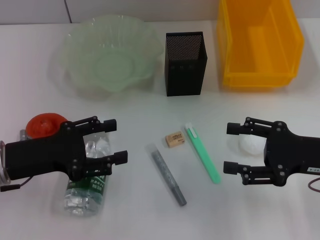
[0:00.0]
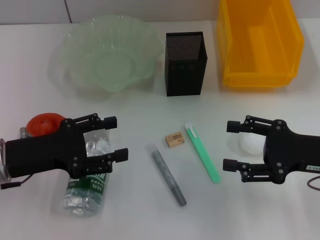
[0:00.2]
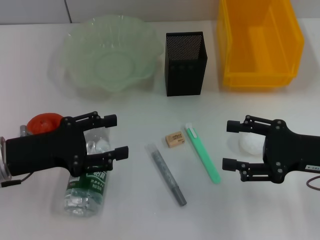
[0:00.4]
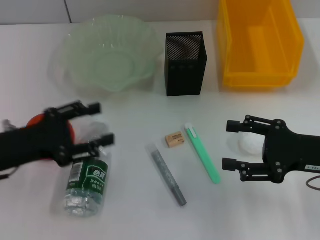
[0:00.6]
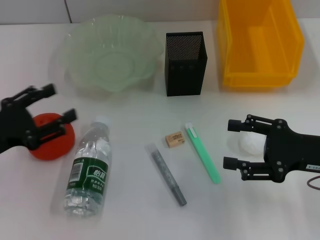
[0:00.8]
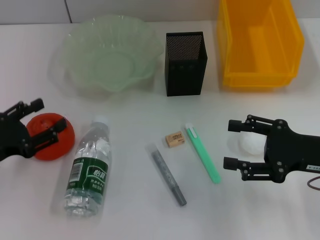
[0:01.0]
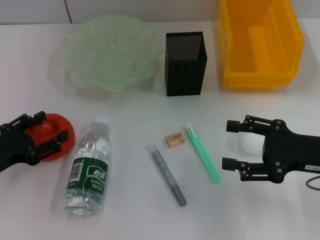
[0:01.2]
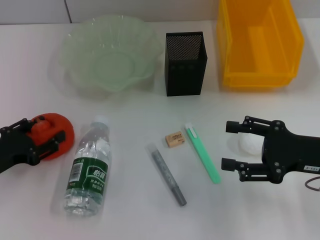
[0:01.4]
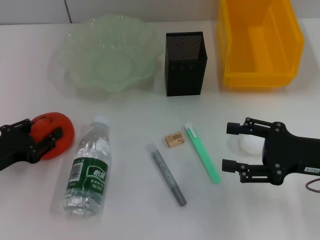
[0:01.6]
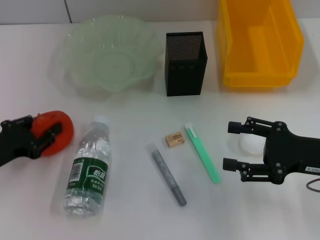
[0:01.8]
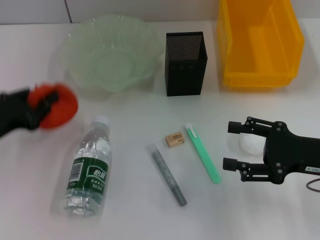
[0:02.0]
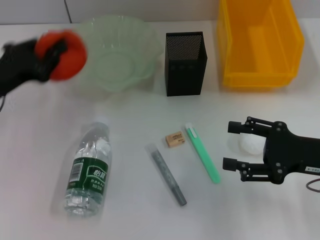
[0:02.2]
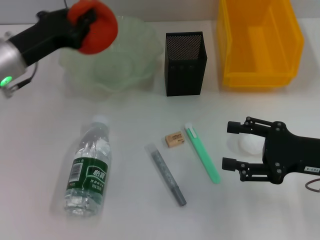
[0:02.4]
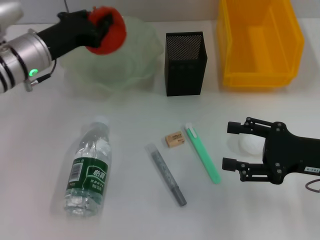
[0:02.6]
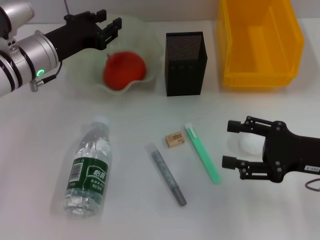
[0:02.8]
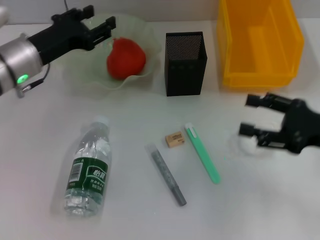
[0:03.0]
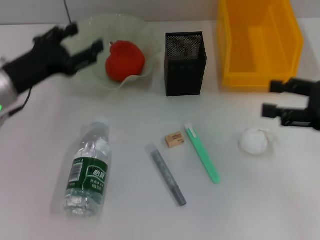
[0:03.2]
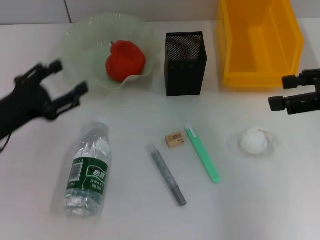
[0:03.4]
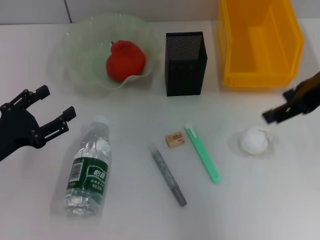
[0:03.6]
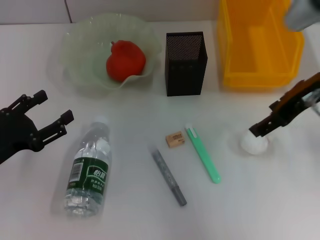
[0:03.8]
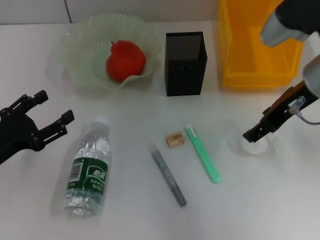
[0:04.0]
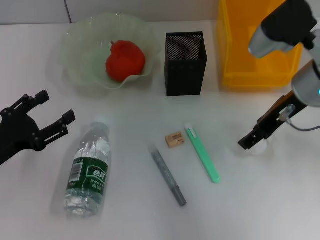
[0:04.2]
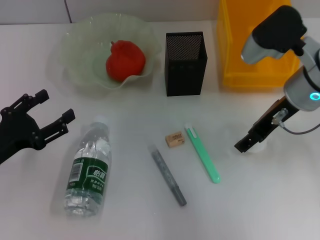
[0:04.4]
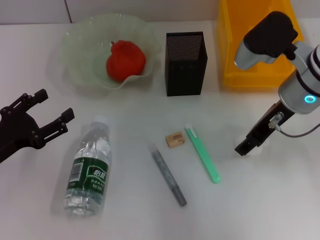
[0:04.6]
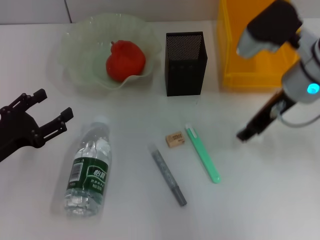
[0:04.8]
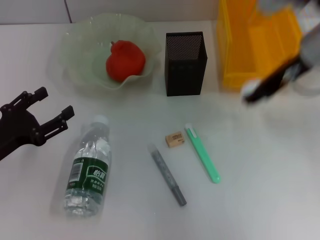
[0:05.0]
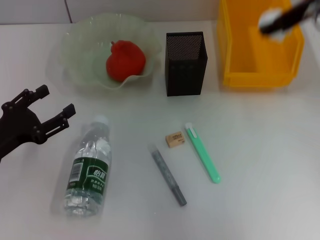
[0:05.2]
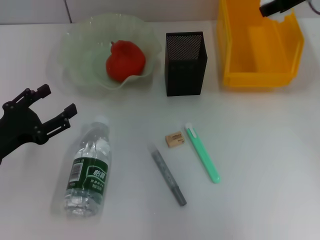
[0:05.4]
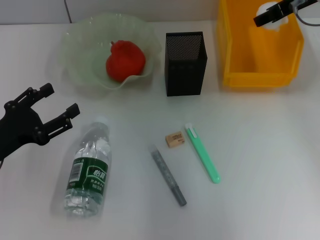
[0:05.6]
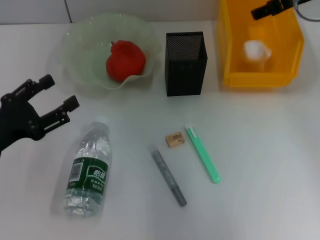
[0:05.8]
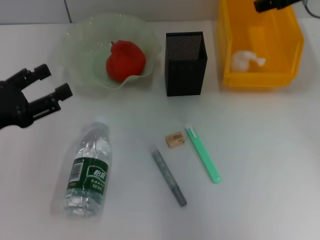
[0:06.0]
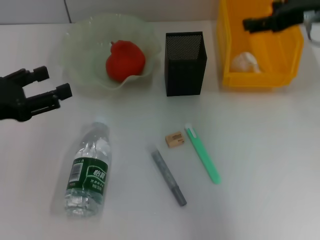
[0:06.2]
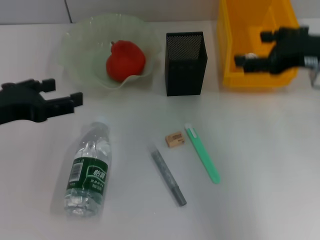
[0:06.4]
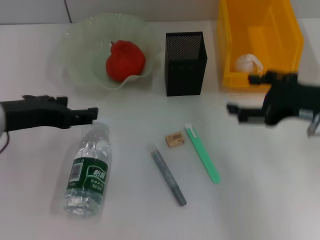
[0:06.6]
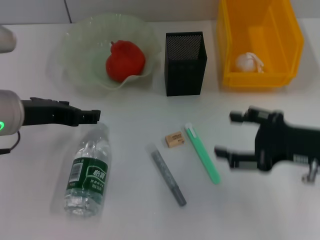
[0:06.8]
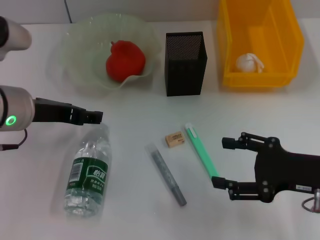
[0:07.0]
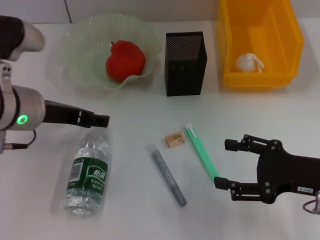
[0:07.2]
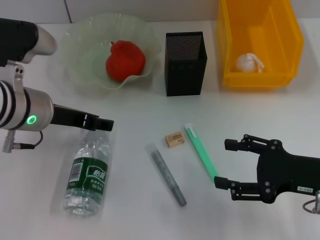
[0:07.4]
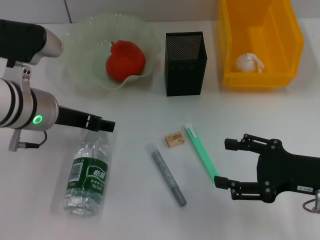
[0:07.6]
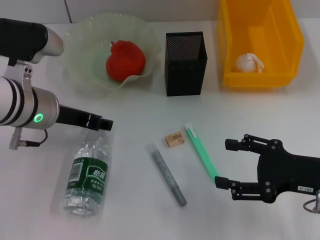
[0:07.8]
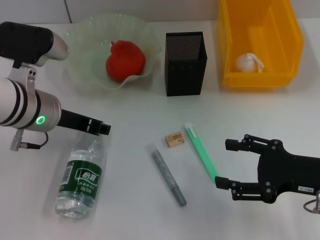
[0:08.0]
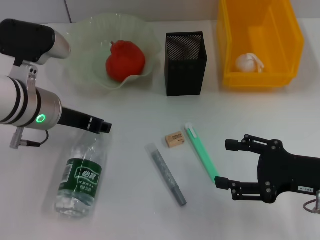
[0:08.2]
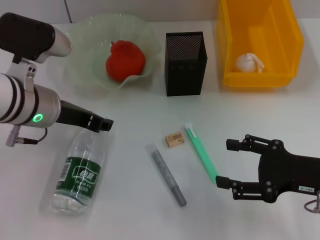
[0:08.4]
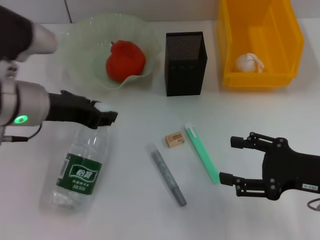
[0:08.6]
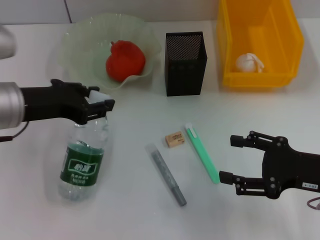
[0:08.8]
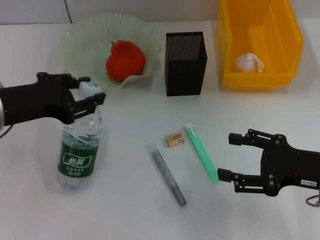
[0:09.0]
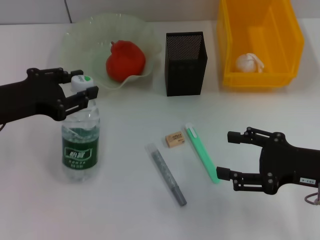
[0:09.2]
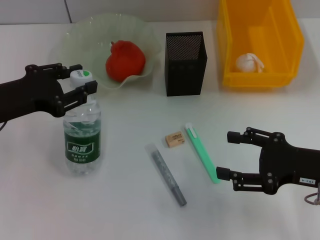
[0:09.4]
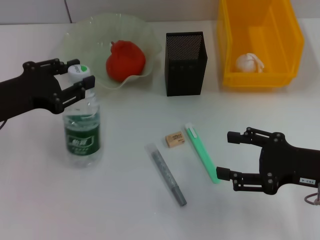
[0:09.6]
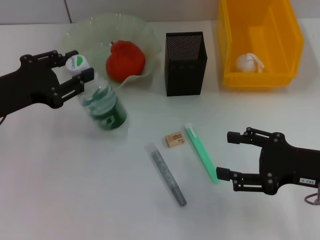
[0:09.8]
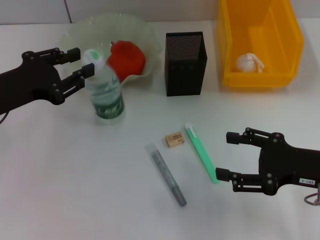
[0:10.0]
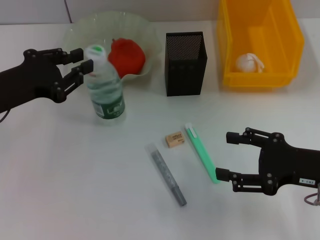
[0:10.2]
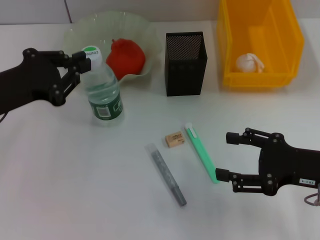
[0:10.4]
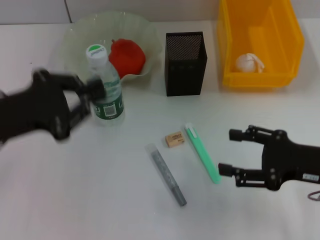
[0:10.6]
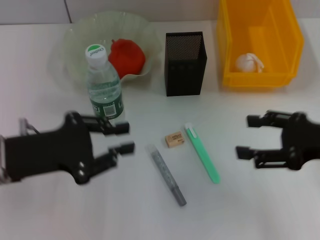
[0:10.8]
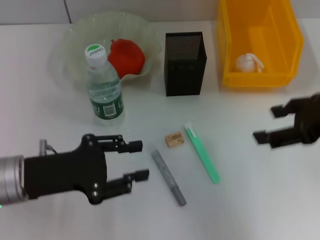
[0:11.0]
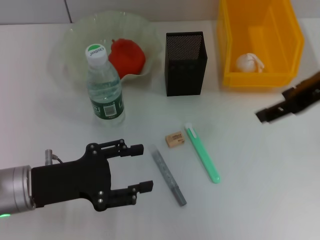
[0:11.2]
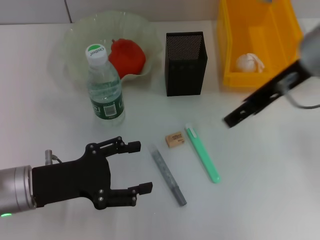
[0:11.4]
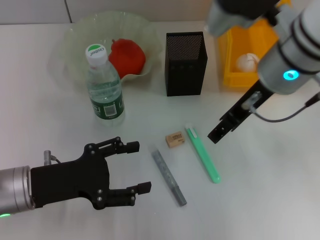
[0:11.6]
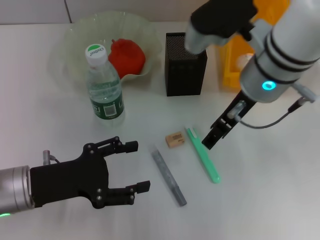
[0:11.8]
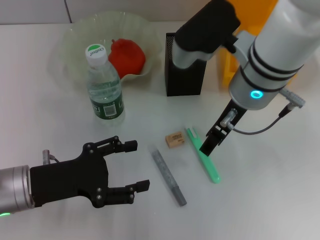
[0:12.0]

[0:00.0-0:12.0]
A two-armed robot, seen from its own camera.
Step, 0.0 to 1.4 s: Grab the orange with the left hand.
Step, 1.8 to 2.6 s: Place the orange into the fruit bowl with the left hand.
Step, 3.0 to 4.6 s: Grab the paper ball with the right hand.
Step, 4.8 to 5.6 s: Place the paper ball into the trash can with the right hand.
Step, 5.8 to 8.2 s: Grab the water bottle with the left hand.
Step, 8.4 to 9.8 s: Place the water bottle on the table with the left hand.
0.0 to 1.6 s: The left gripper shifts some 5 cm to the left.
1.6 to 3.0 s: The left gripper shifts roughly 20 cm forward, to the right and upward.
3.0 to 4.4 s: The right gripper is displaced to the left, forward and upward by approximately 15 cm; the left gripper travels backward and to the left by roughly 20 cm, and opens up.
4.4 to 6.0 s: The left gripper moves upward, some 5 cm. The right gripper moves upward, forward and to the right, some 10 cm.
6.0 to 7.6 s: The right gripper shifts roughly 25 cm backward and downward; the left gripper is displaced to the right and forward by roughly 15 cm.
7.6 to 9.0 s: The left gripper is displaced to the left by about 5 cm, and closes up.
10.4 to 12.0 s: The left gripper heads downward and backward, covering some 10 cm, and opens up. The right gripper heads to the left, forward and upward, covering about 20 cm.

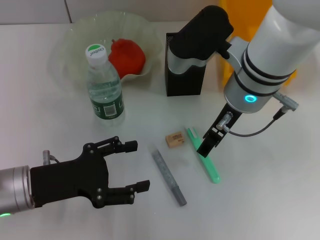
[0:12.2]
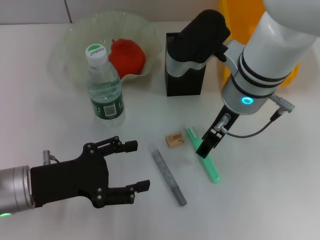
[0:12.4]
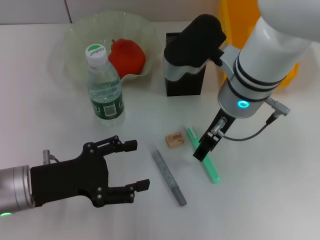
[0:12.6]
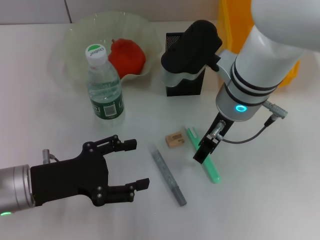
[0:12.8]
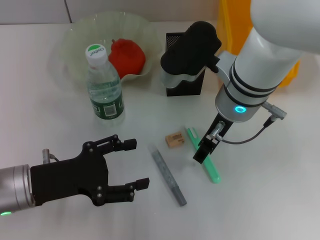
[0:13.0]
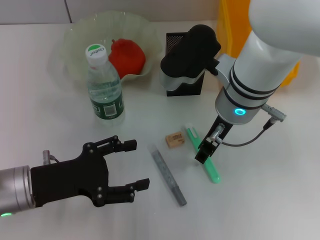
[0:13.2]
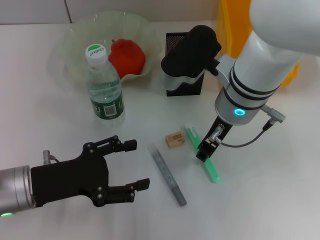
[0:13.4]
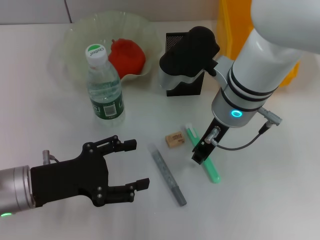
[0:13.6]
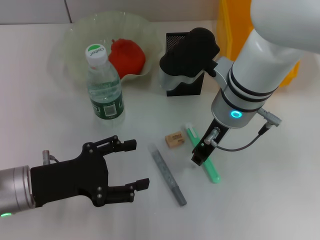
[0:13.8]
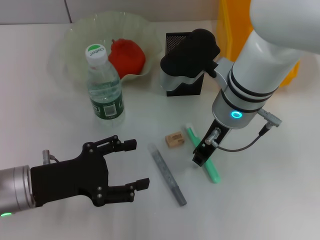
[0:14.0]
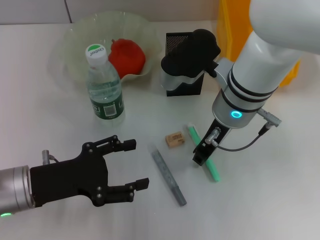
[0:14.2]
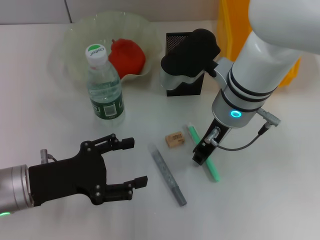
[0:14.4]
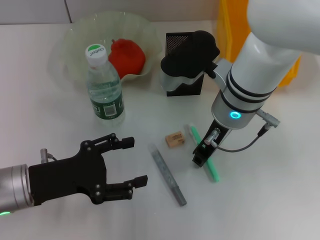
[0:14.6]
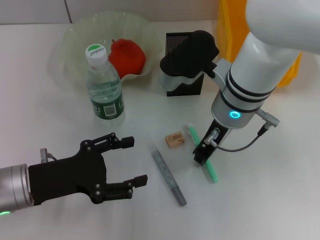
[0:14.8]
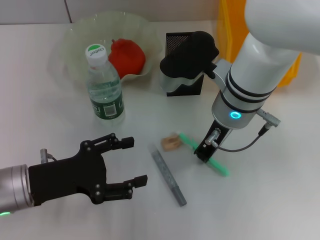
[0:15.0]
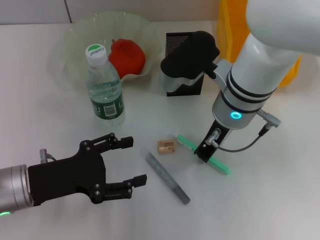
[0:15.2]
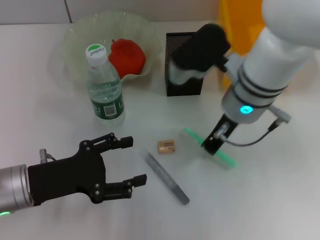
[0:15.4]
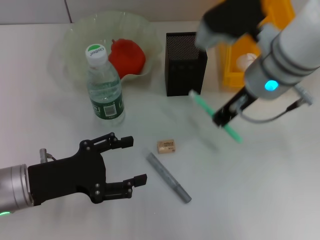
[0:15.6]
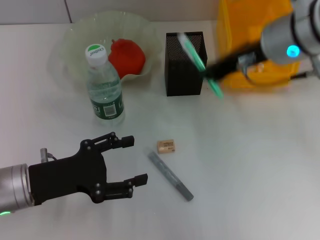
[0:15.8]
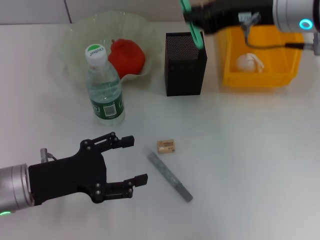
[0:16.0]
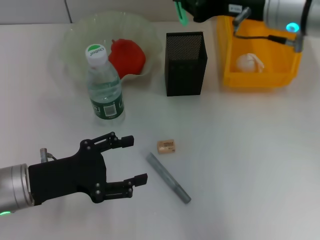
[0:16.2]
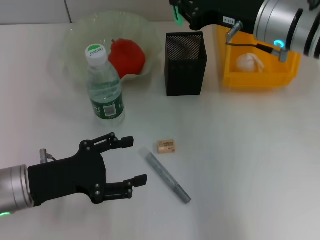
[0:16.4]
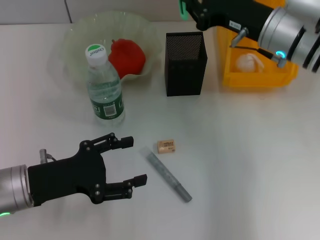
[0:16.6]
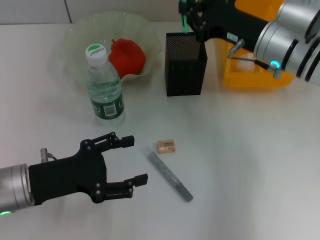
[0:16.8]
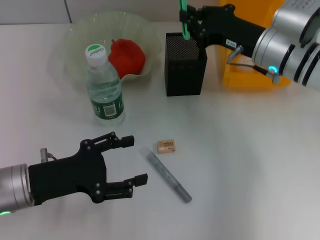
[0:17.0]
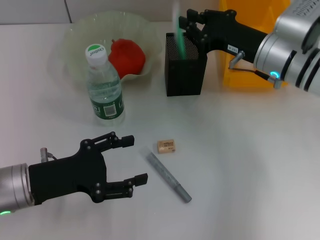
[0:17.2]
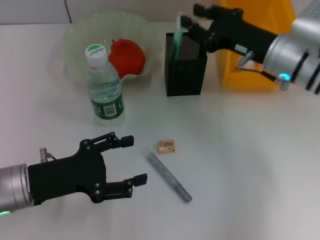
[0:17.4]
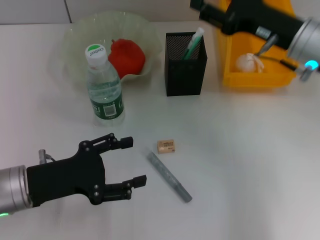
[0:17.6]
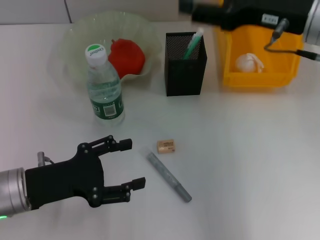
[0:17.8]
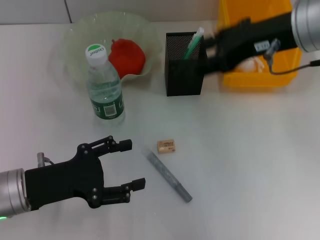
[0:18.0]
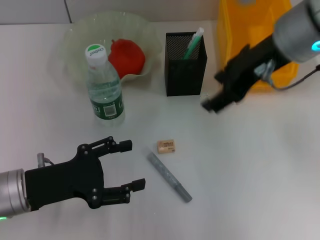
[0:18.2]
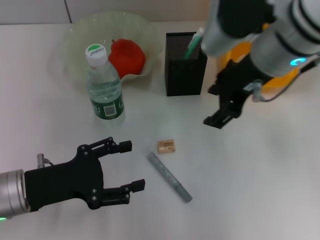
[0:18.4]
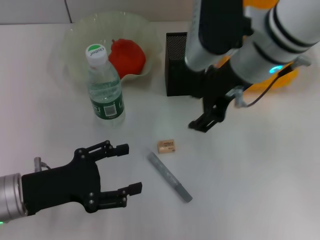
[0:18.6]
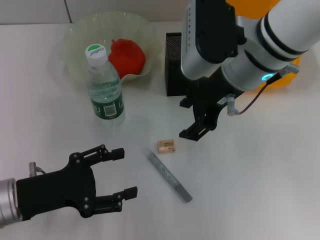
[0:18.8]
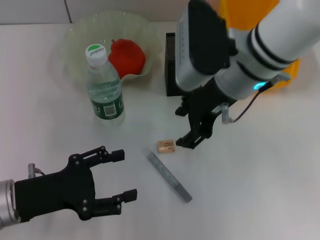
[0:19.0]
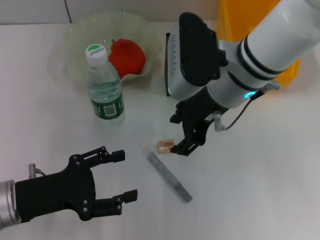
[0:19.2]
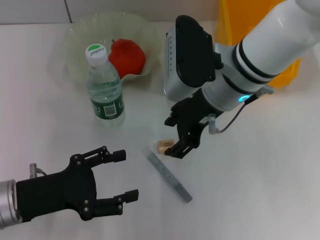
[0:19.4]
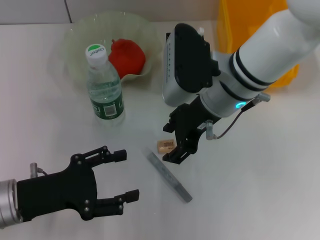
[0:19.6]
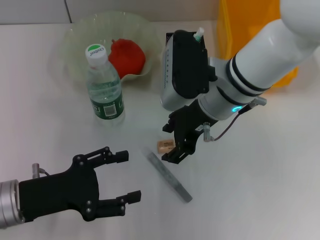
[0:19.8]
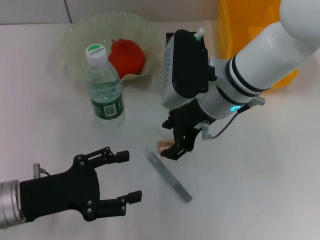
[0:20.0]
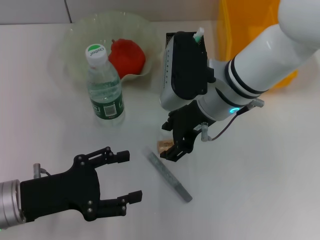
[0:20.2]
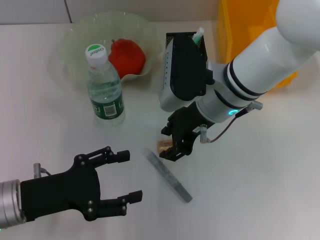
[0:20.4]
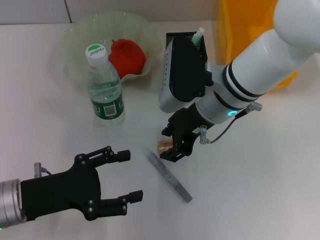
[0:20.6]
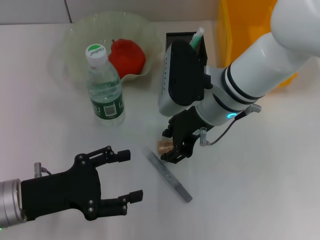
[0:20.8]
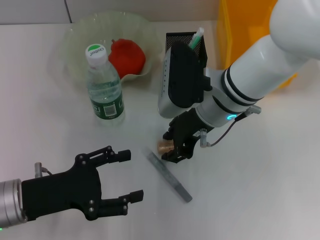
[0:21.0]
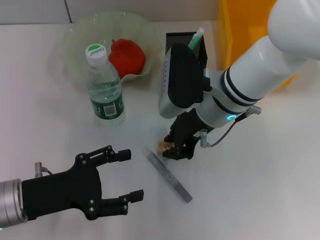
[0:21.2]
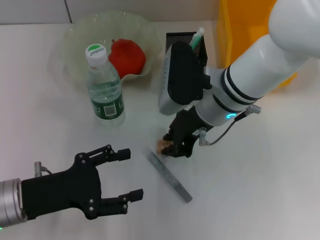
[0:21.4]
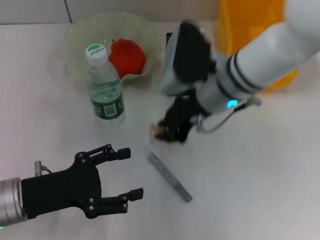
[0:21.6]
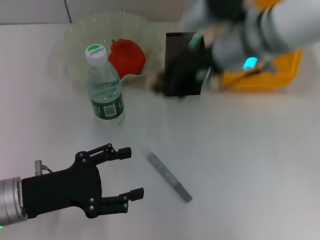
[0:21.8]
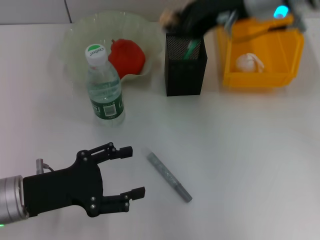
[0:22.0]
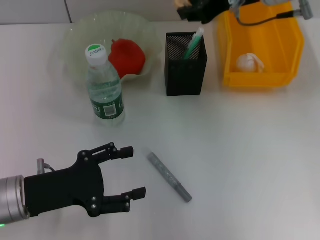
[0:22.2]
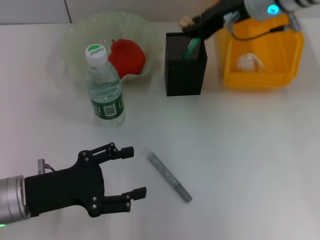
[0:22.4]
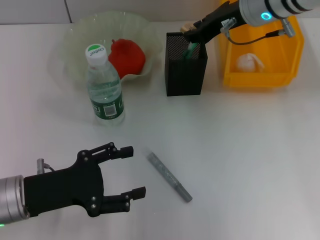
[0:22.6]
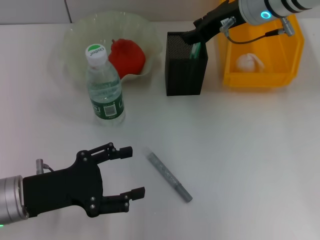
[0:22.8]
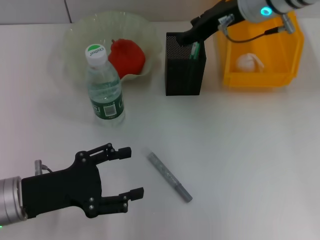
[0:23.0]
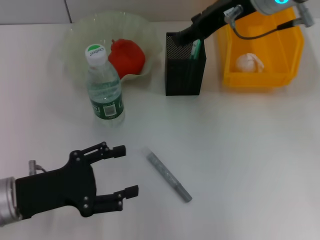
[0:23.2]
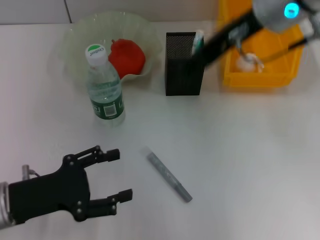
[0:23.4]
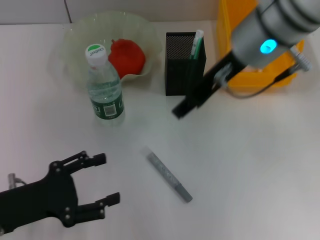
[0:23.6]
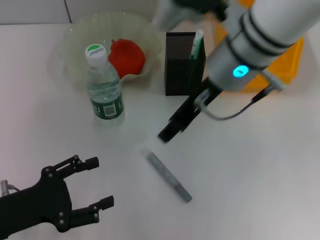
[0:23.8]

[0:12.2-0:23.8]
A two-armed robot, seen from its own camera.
Step, 12.2 to 15.2 s: Grab the blue utility knife with the right hand.
Step, 15.4 to 17.2 s: Place the blue utility knife into the pen holder with the right hand.
Step, 17.6 to 21.0 s: Grab the eraser with the right hand.
Step, 21.4 to 23.0 s: Put the eraser into the pen holder with the right hand.
12.2 to 13.6 s: The right gripper closes up.
13.6 to 15.0 s: Neither gripper changes place.
15.0 to 16.6 s: The right gripper heads to the right, covering some 10 cm, and moves some 10 cm upward and comes back.
16.6 to 18.0 s: The right gripper shifts approximately 10 cm upward, and opens.
18.0 to 19.4 s: The right gripper is displaced to the left and downward by about 10 cm.
19.4 to 21.0 s: The grippers make only small movements.
21.0 to 22.4 s: The right gripper heads upward, forward and to the right, covering about 15 cm.
22.4 to 23.8 s: The left gripper changes place by about 5 cm, while the right gripper shifts some 10 cm backward and to the left, and opens.
